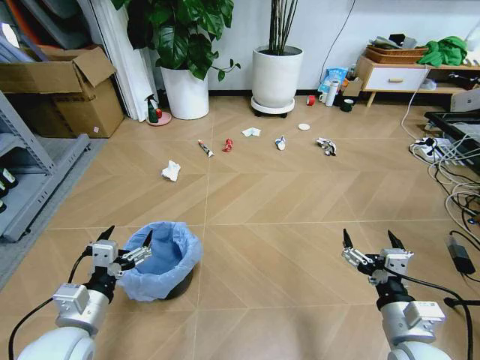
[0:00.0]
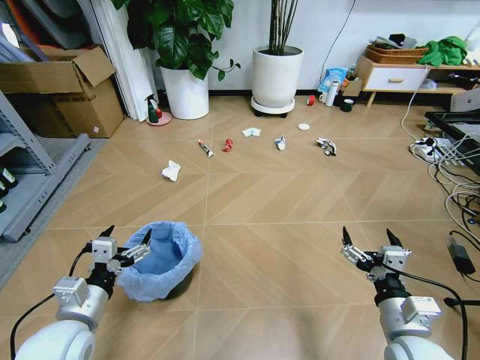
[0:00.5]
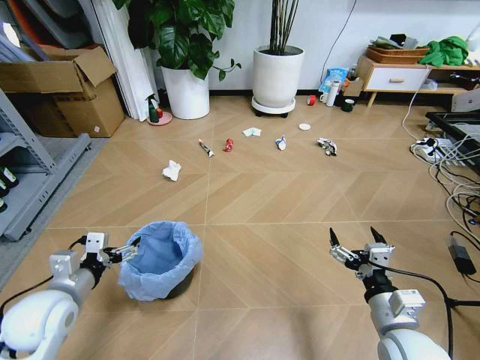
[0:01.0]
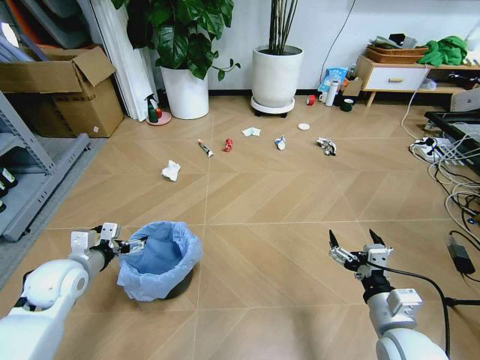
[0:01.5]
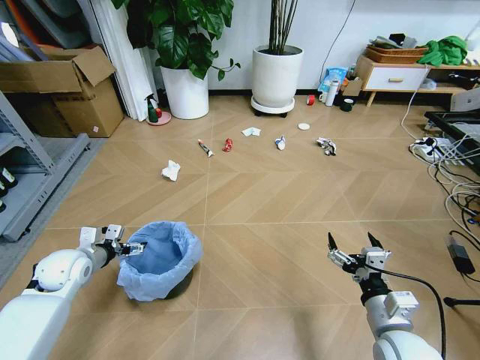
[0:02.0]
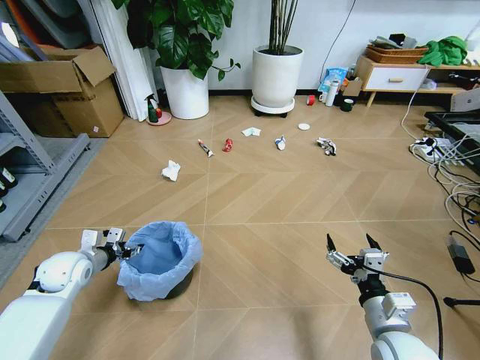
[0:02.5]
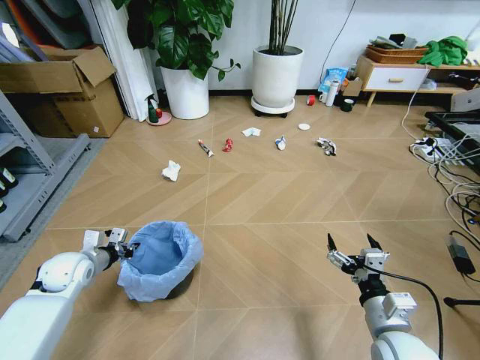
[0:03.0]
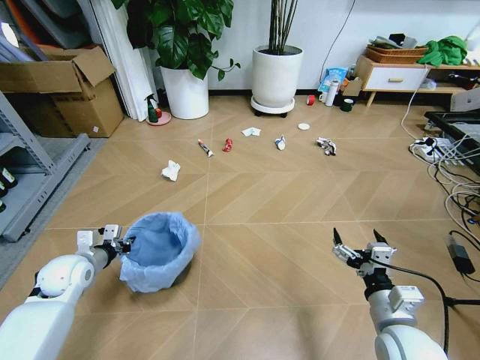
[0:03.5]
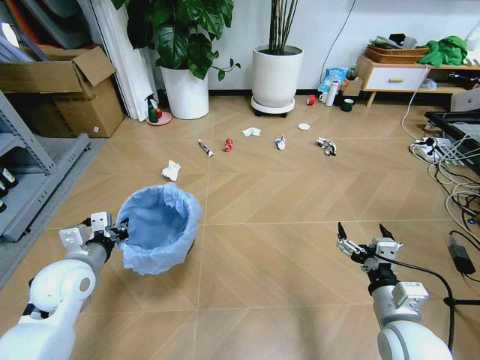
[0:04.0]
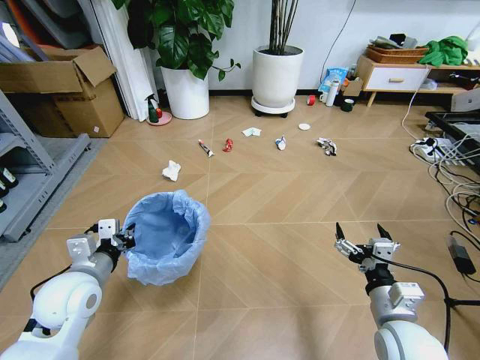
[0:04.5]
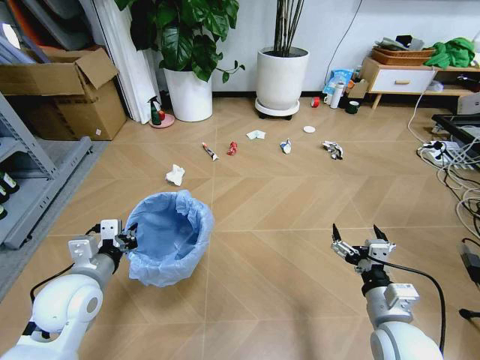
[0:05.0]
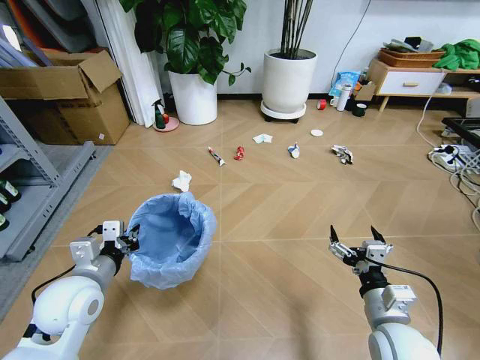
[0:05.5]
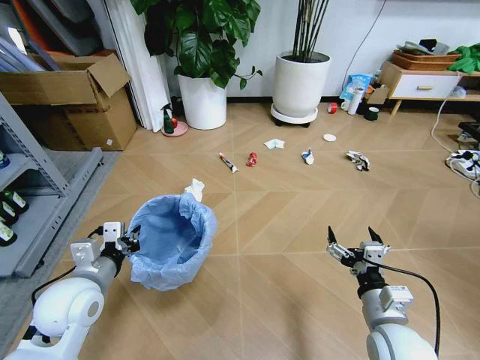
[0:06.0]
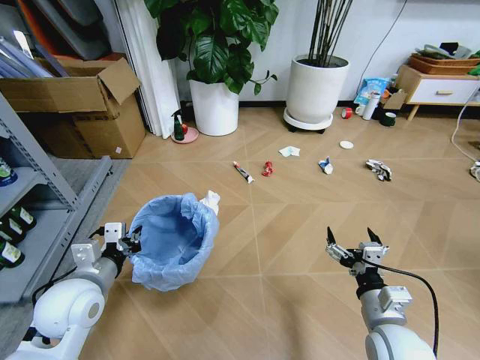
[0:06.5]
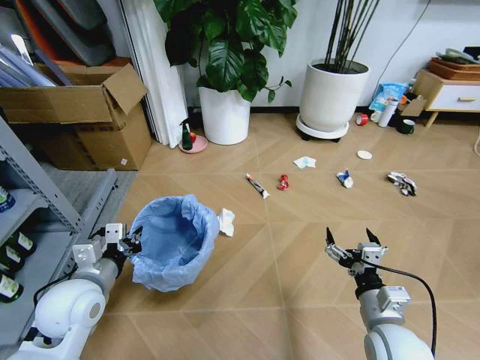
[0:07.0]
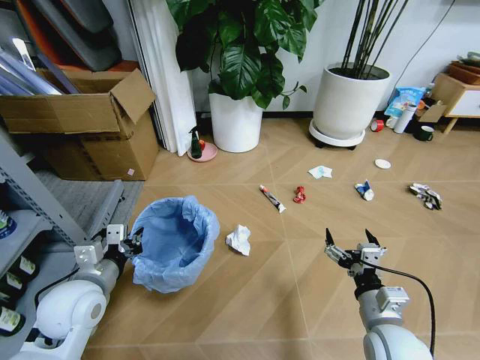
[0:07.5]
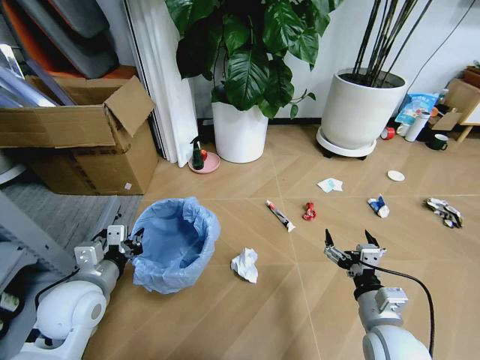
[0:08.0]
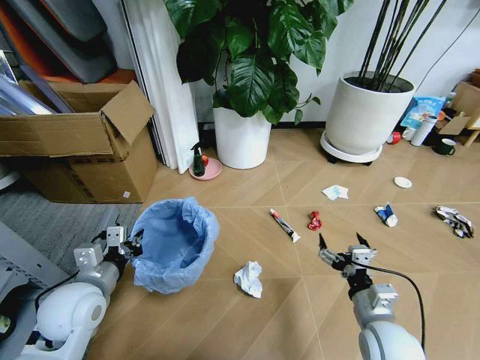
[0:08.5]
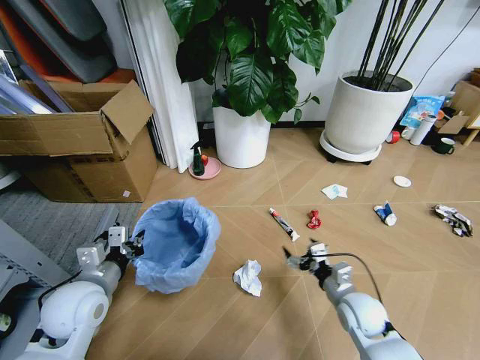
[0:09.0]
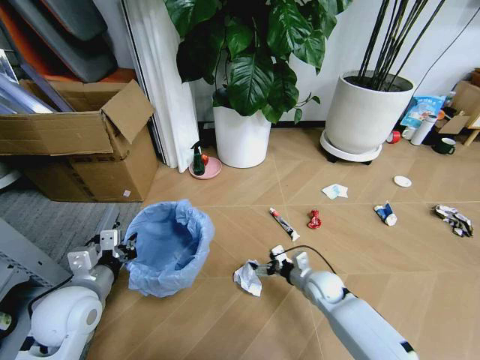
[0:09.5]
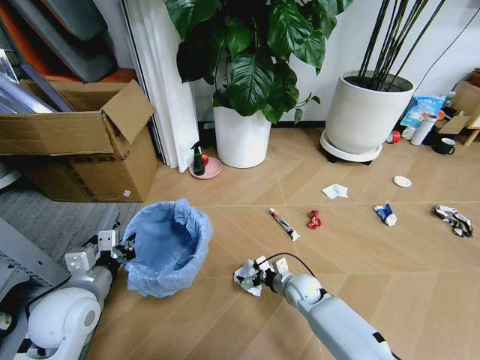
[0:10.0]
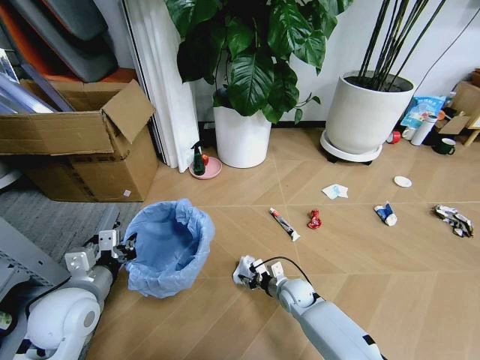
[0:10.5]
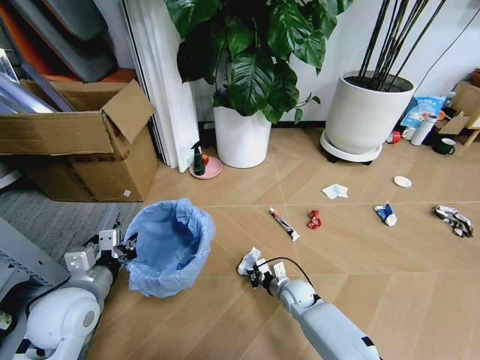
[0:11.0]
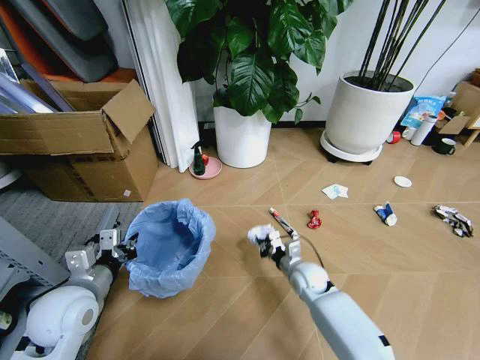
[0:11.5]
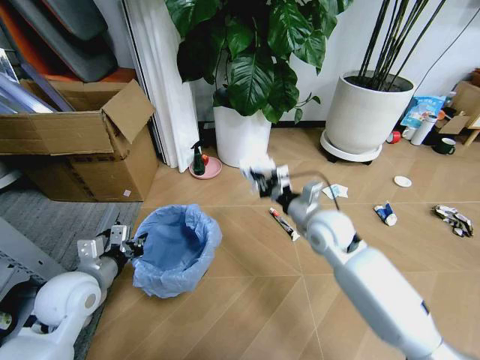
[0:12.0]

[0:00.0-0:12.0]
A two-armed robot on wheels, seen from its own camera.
Task of the whole recording: Pick up the trash bin and place the garbage on the floor into it.
0:02.0 to 0:04.0: The left gripper heads to the right, backward and upward, covering some 10 cm, and closes up.
0:04.0 to 0:06.0: The left gripper shifts by roughly 5 cm.
0:08.0 to 0:10.0: The right gripper is displaced forward, downward and to the left by roughly 25 cm.
0:10.0 to 0:12.0: The right gripper travels upward by about 25 cm, and closes.

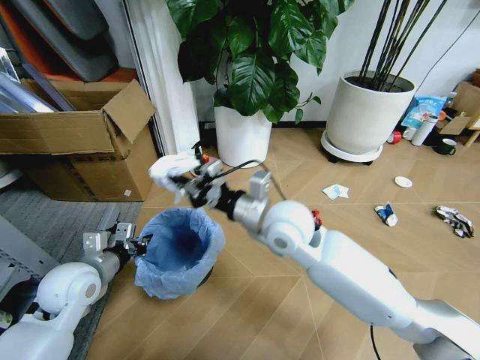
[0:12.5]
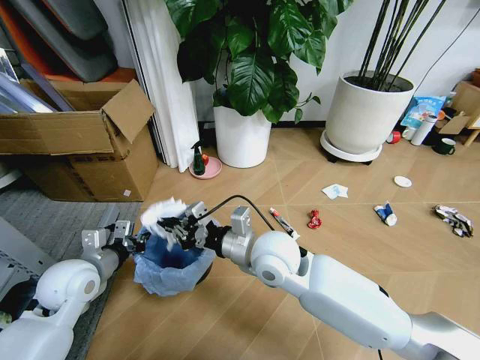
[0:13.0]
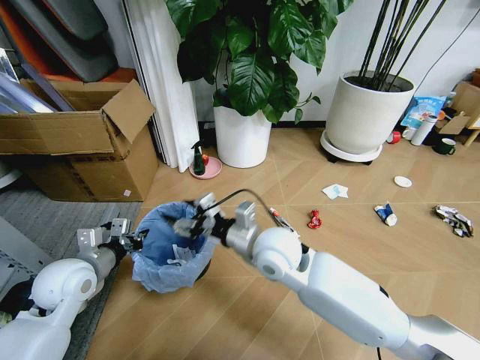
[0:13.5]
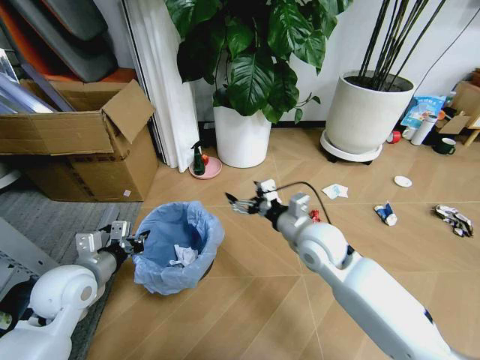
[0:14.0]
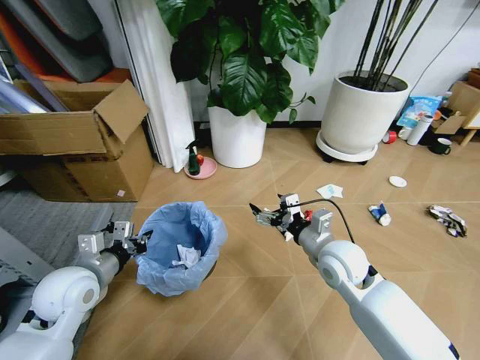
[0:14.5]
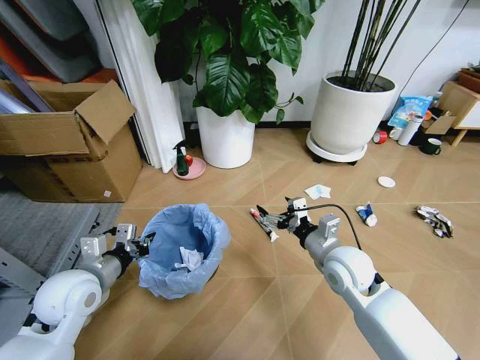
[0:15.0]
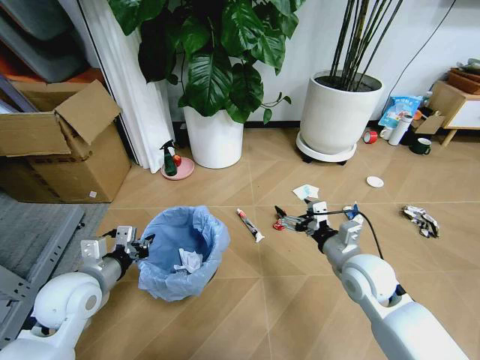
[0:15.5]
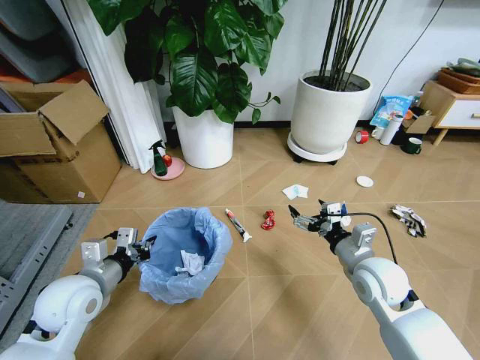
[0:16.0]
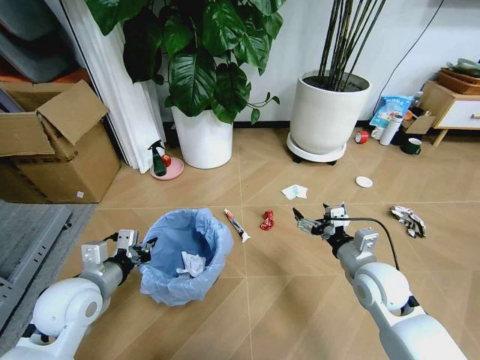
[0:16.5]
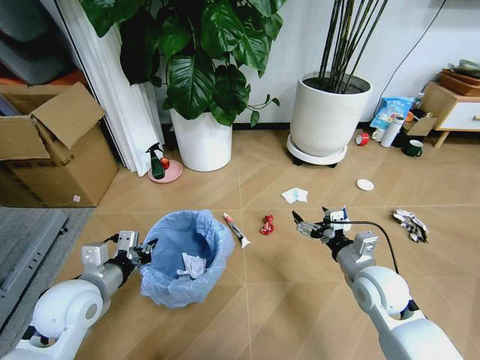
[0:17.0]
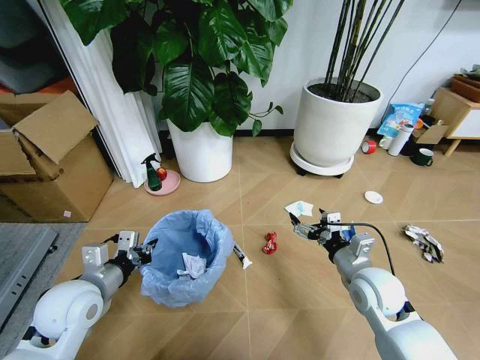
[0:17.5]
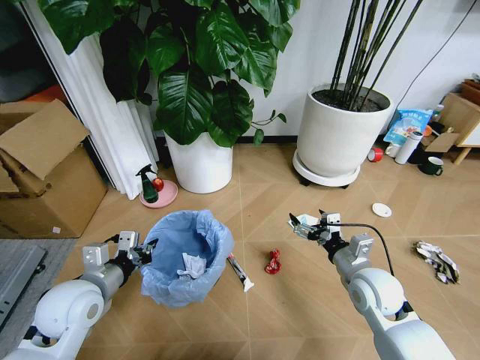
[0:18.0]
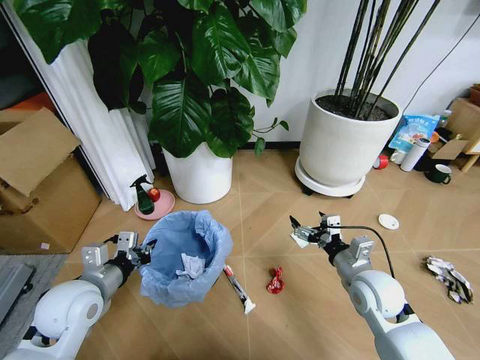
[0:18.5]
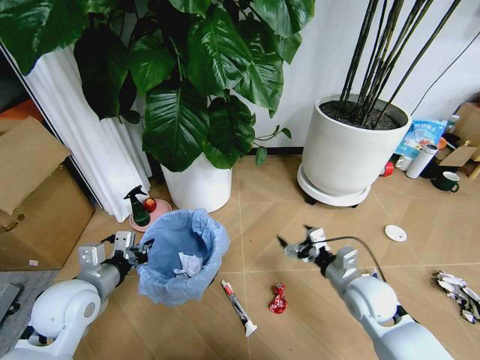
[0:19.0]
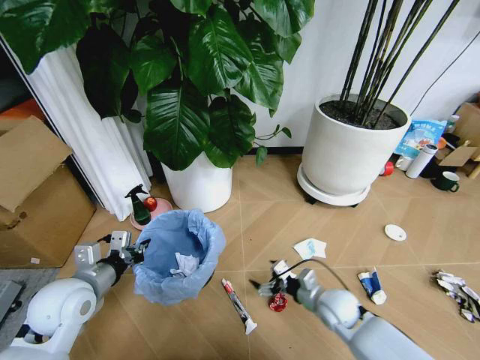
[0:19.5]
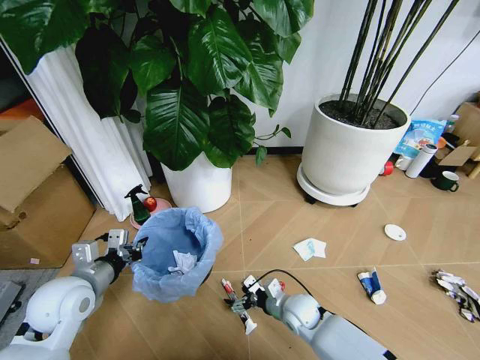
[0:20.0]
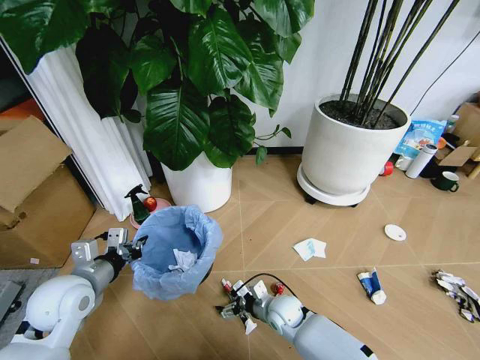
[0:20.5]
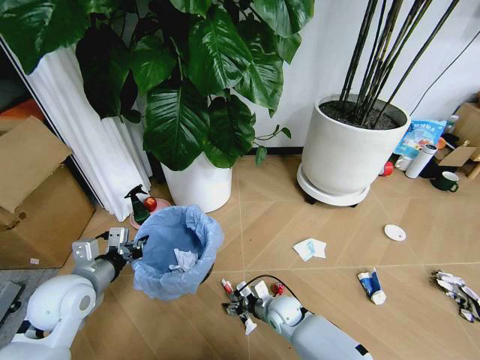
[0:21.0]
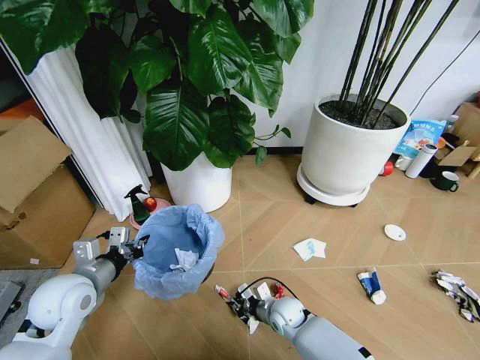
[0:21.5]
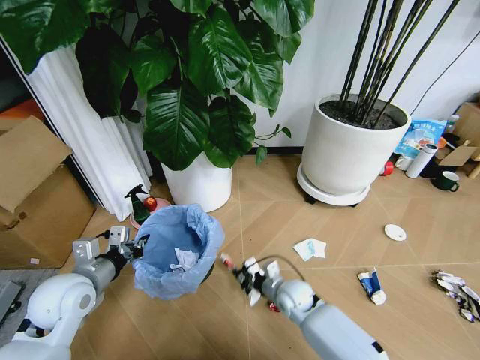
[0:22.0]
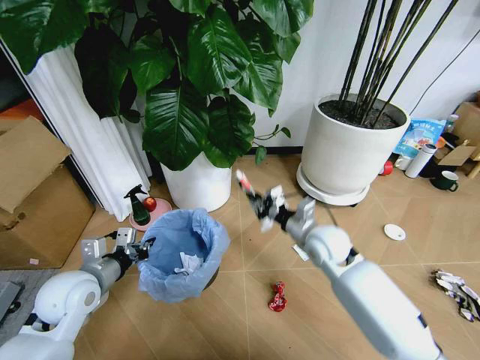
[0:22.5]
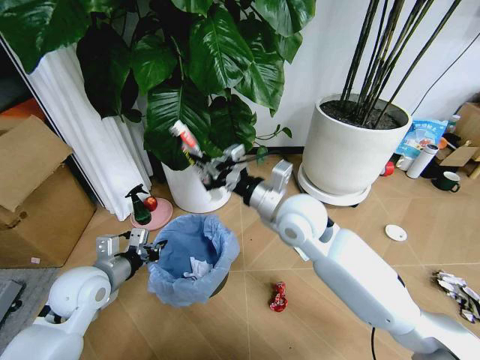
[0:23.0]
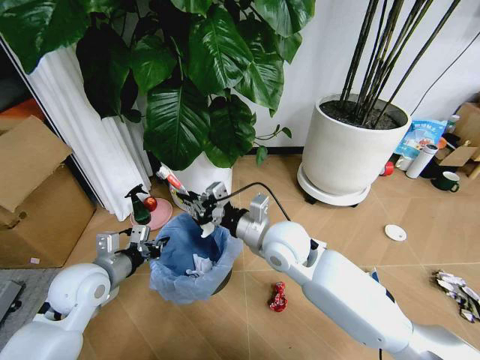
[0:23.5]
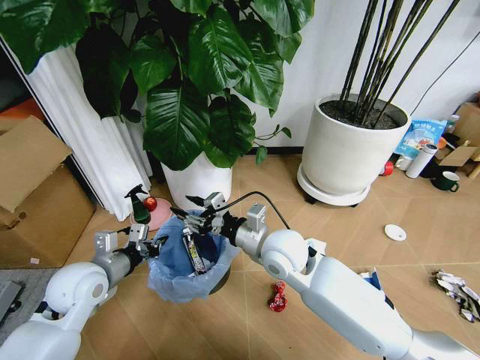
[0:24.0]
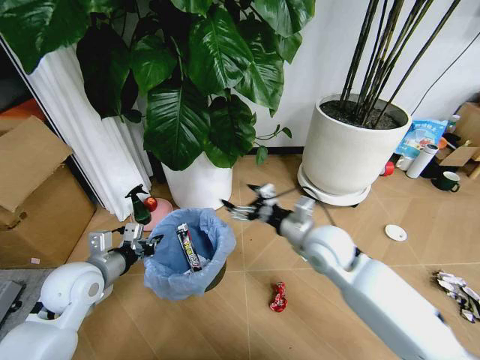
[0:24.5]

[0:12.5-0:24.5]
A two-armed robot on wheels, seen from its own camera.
Task of the whole recording: Pick up the trash bin and place the garbage on the floor into it.
0:12.5 to 0:14.5: The right gripper travels to the right and downward by some 15 cm, and opens its fingers.
0:14.5 to 0:16.5: The right gripper heads to the right, covering about 5 cm.
0:18.5 to 0:20.5: The right gripper shifts approximately 25 cm downward and to the left.
0:20.5 to 0:22.5: The right gripper moves upward, about 20 cm, and closes its fingers.
0:22.5 to 0:24.5: The right gripper travels upward and back again, roughly 10 cm each way, and opens.

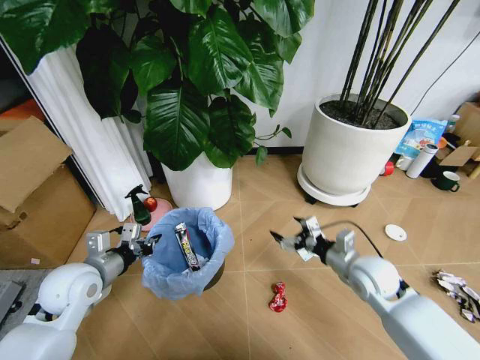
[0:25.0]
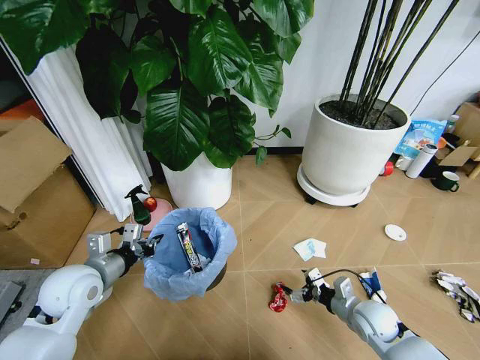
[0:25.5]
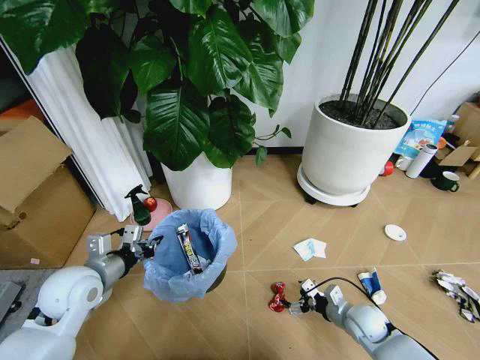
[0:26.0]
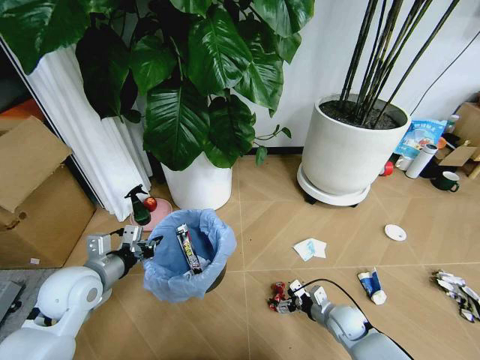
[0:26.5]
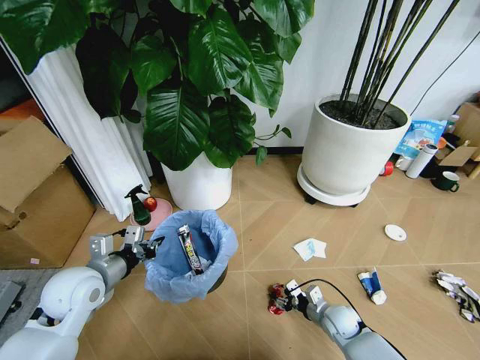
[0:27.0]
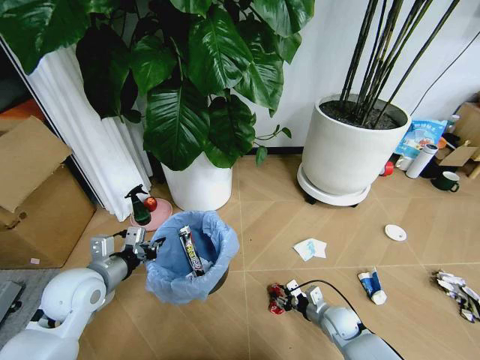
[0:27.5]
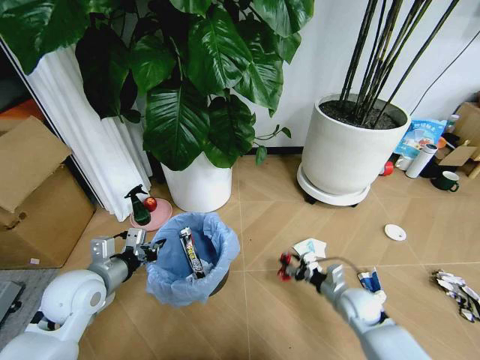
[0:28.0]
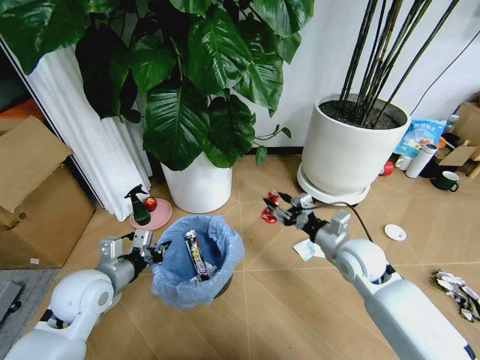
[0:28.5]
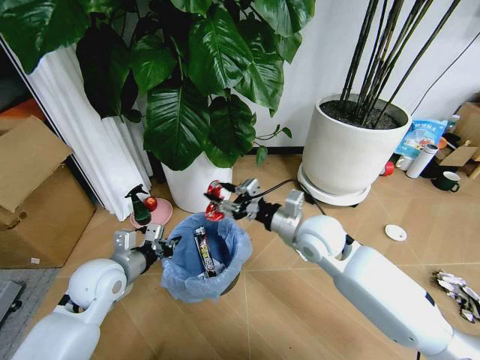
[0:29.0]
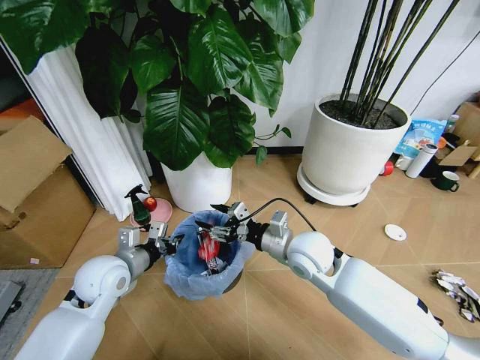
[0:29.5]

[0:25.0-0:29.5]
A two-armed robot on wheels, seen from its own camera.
Task of the whole recording: Pick up the trash bin and place the garbage on the floor into it.
0:25.0 to 0:27.0: The right gripper travels downward by roughly 20 cm, and closes.
0:27.0 to 0:29.5: The right gripper shifts some 30 cm upward and to the left.
